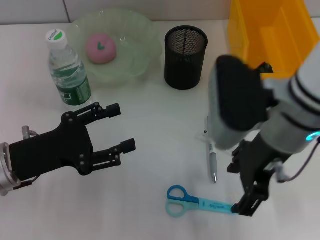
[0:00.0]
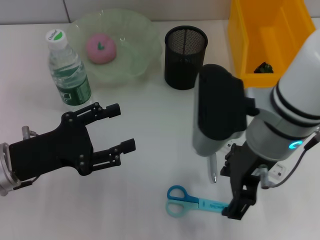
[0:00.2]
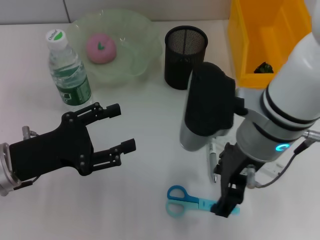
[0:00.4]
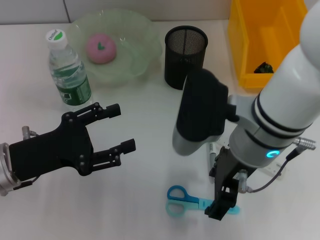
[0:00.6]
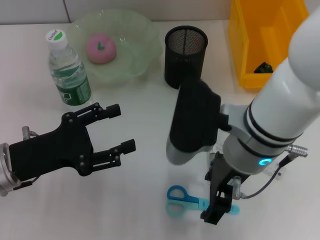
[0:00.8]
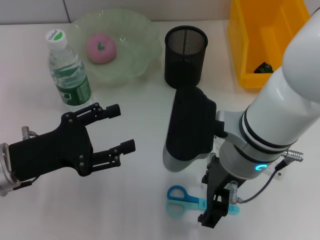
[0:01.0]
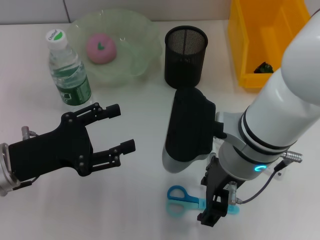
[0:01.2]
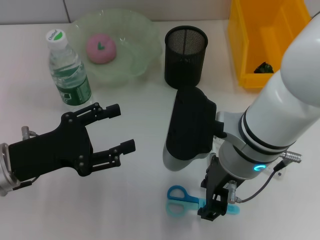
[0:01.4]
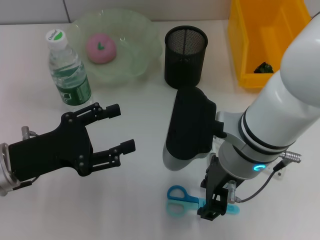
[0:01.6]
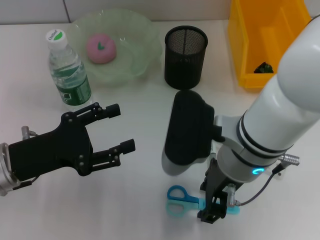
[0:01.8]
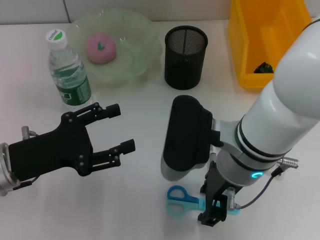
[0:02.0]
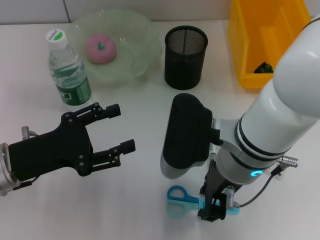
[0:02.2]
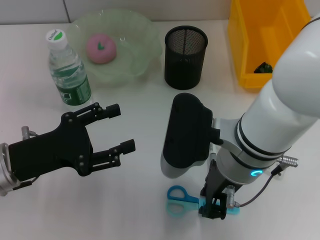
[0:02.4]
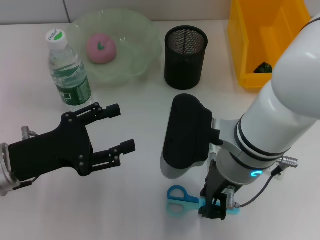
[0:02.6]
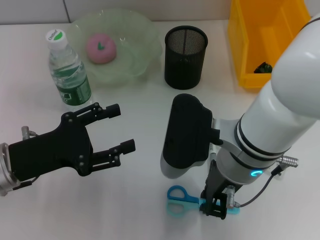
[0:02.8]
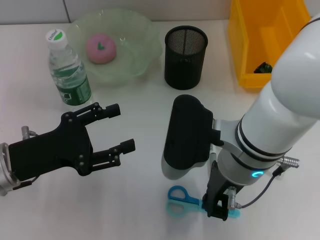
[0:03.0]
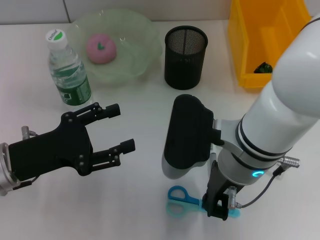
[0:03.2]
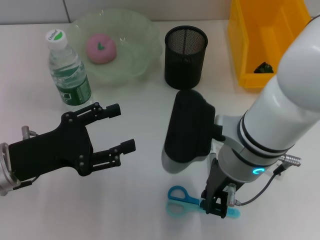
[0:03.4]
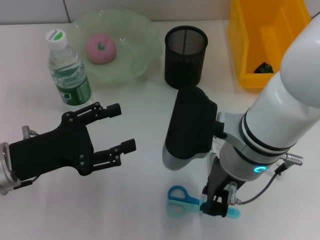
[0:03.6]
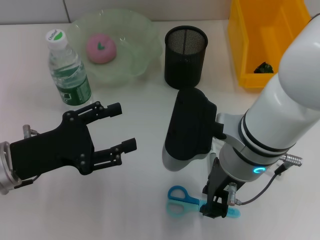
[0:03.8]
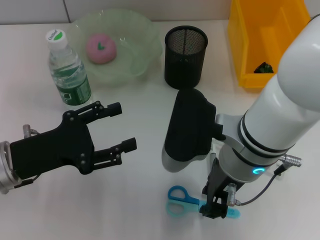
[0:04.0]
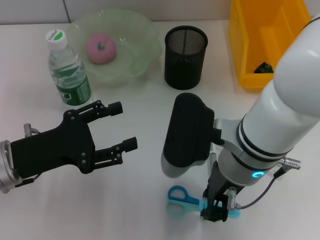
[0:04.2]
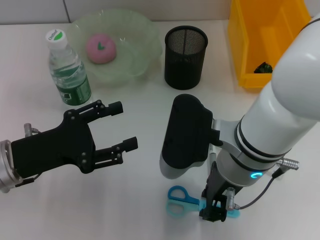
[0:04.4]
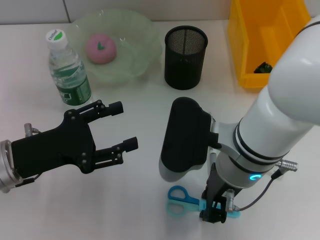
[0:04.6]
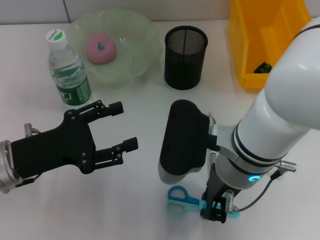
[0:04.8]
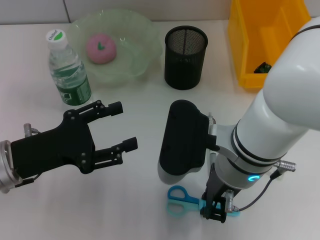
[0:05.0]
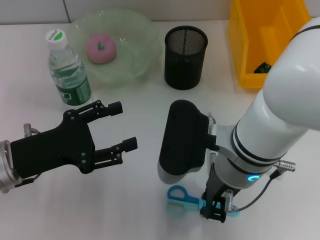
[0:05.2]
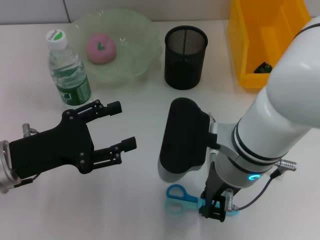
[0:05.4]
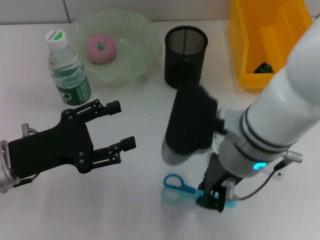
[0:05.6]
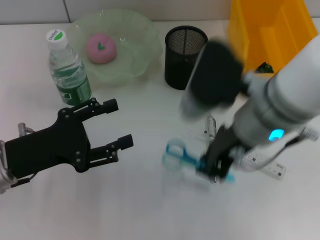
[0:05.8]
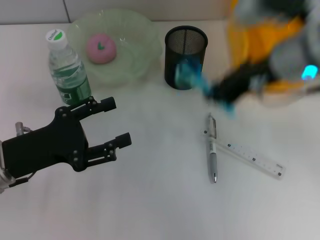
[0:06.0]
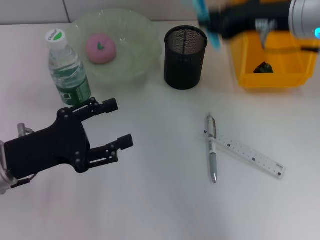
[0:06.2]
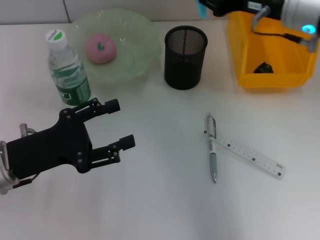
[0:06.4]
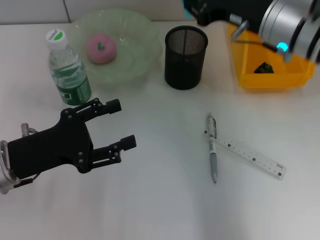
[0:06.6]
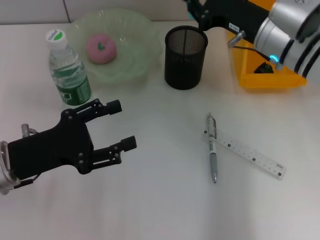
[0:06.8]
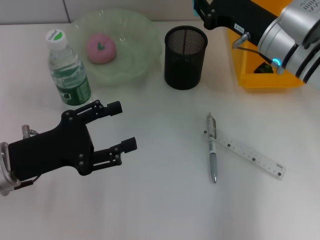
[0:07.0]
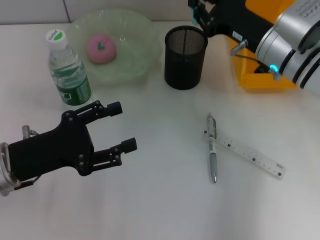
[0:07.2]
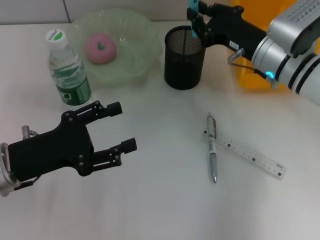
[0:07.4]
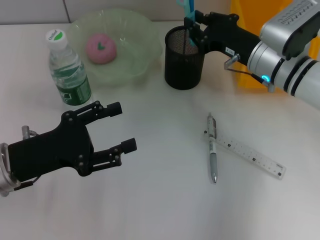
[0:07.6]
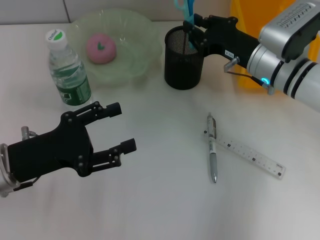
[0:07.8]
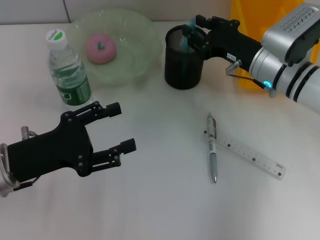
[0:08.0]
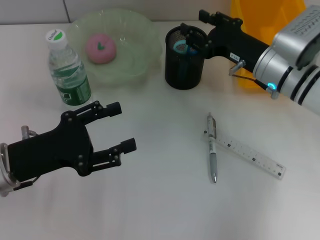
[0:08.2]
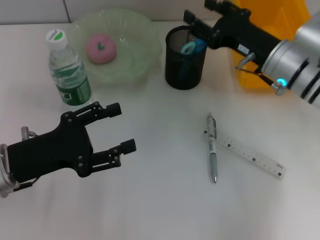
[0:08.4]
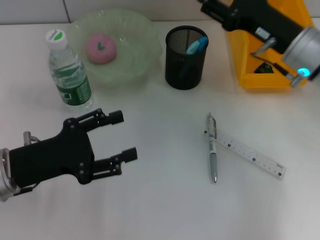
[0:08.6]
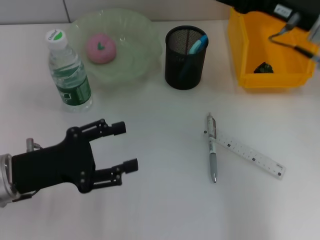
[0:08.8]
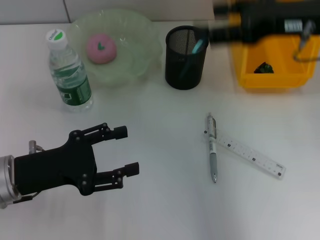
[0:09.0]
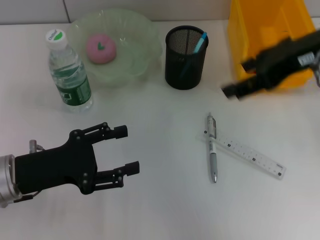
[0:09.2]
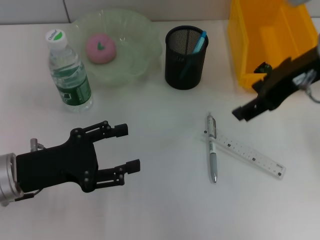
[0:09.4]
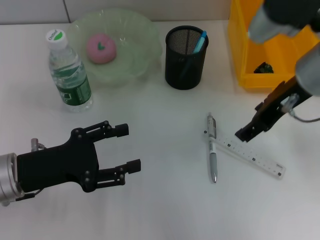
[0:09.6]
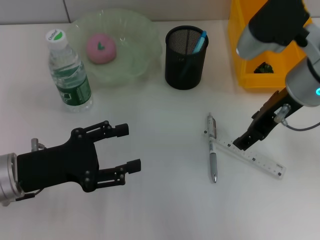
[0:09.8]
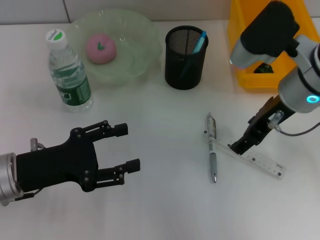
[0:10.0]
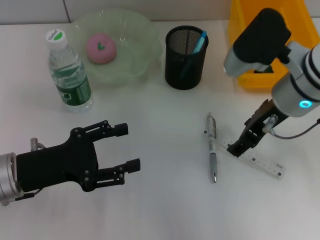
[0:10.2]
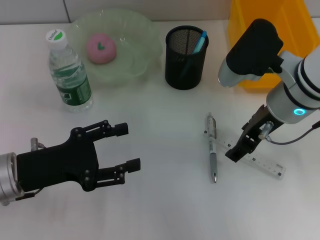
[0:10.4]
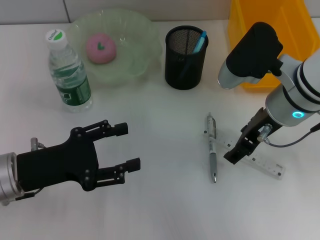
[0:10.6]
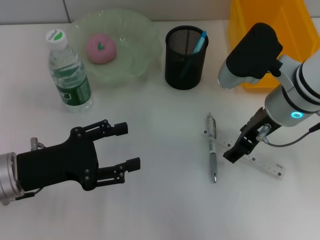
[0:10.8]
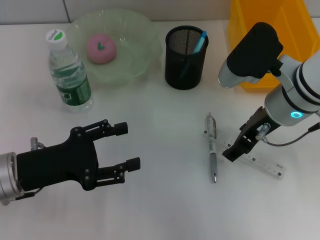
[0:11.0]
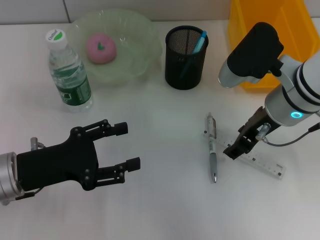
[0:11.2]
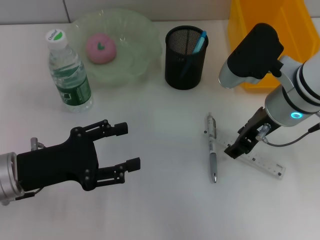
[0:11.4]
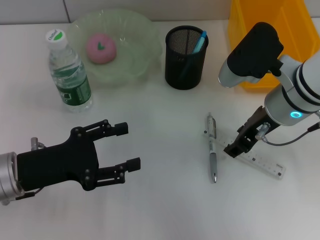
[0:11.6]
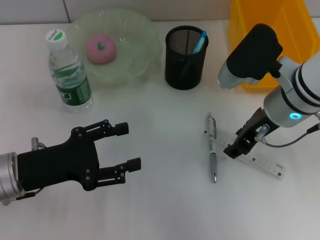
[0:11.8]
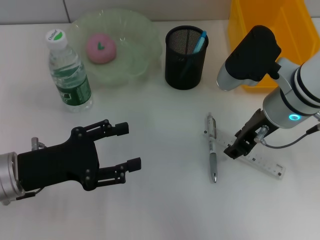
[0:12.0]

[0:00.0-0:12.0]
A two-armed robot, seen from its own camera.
Step, 0:00.0 to 0:05.0: Grab the blue scissors with the right hand.
Step, 0:05.2 to 0:08.2: Place the blue scissors into the pen holder with the right hand.
0:00.0 to 0:01.6: The right gripper shifts by roughly 5 cm.
0:01.6 to 0:03.0: The right gripper closes its fingers.
0:03.0 to 0:04.4: The two grippers keep their place.
0:04.4 to 0:06.0: The right gripper is displaced upward, to the right and forward by some 15 cm.
0:06.0 to 0:07.6: The right gripper goes roughly 15 cm downward and forward.
0:07.6 to 0:09.0: The right gripper is displaced upward by about 15 cm, and opens its fingers.
0:09.0 to 0:10.4: The right gripper travels downward and to the left by about 10 cm.
0:10.4 to 0:12.0: The right gripper closes.

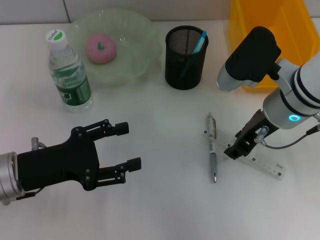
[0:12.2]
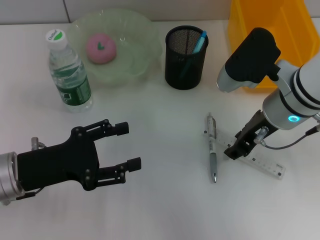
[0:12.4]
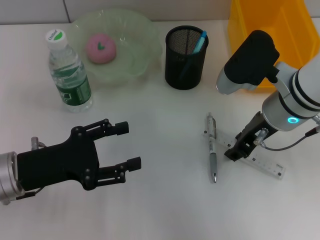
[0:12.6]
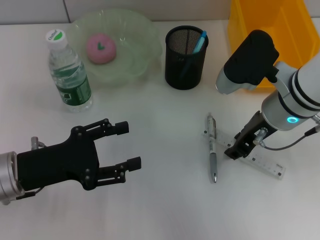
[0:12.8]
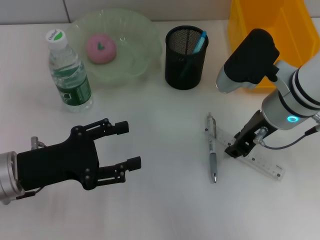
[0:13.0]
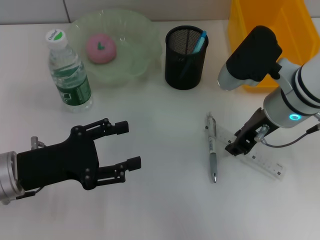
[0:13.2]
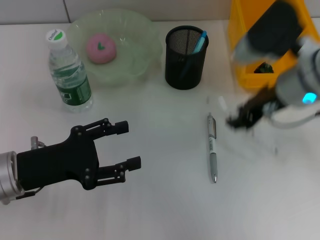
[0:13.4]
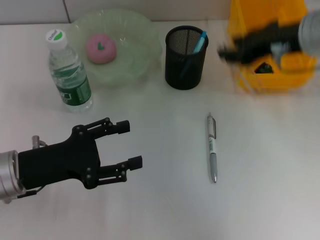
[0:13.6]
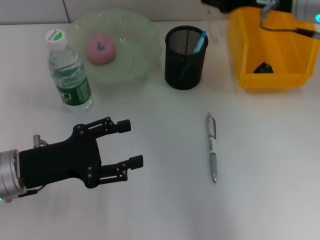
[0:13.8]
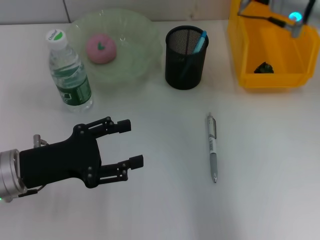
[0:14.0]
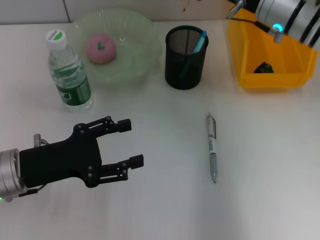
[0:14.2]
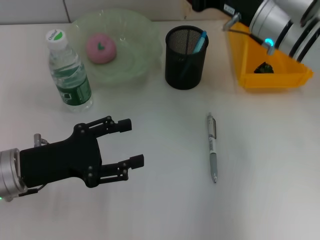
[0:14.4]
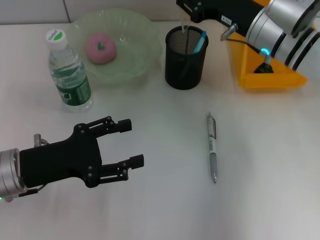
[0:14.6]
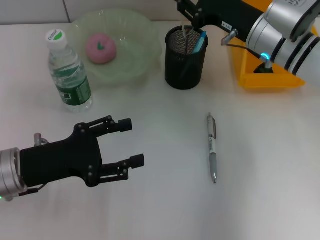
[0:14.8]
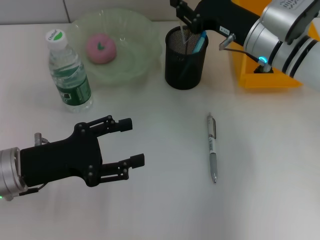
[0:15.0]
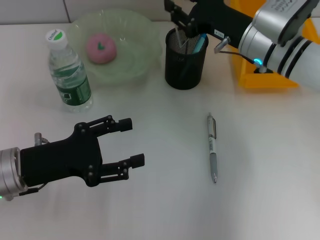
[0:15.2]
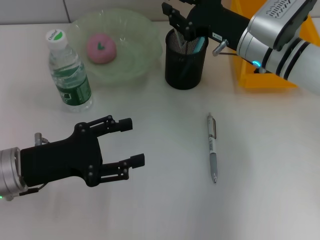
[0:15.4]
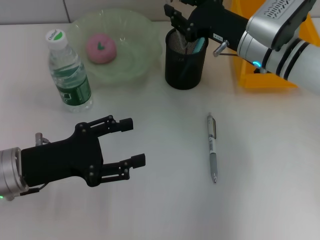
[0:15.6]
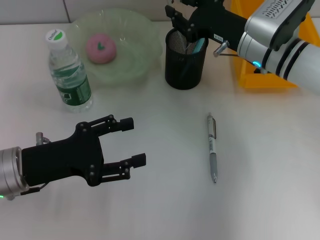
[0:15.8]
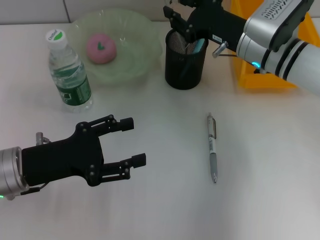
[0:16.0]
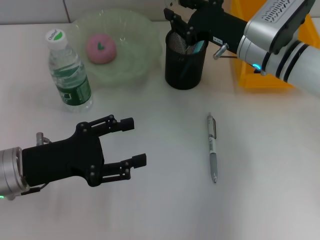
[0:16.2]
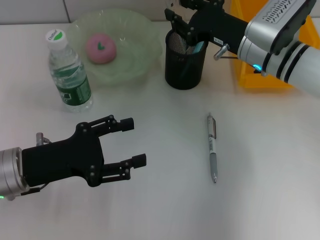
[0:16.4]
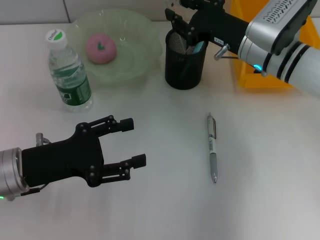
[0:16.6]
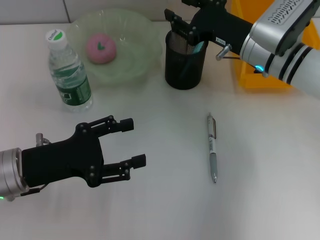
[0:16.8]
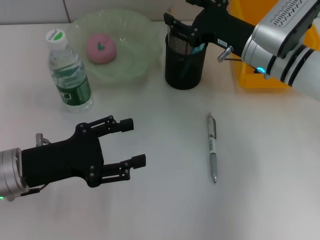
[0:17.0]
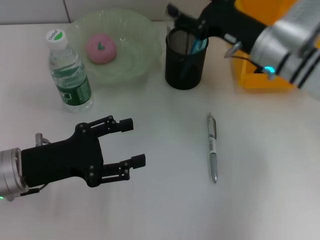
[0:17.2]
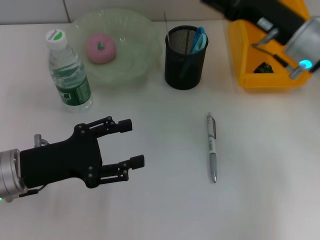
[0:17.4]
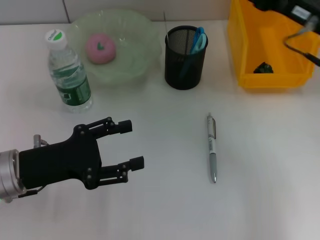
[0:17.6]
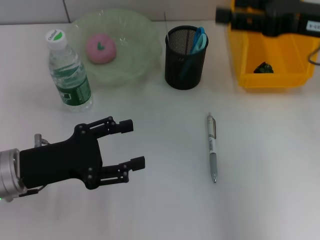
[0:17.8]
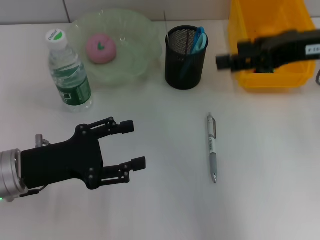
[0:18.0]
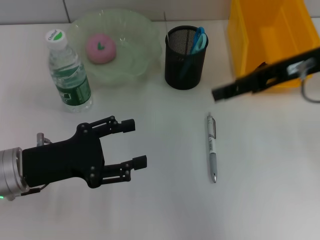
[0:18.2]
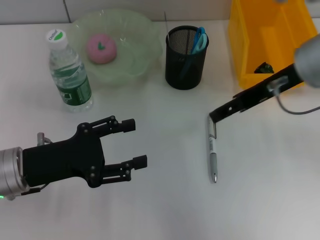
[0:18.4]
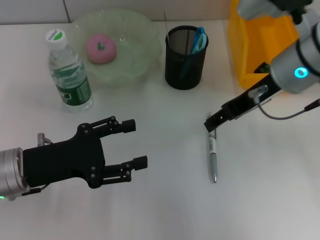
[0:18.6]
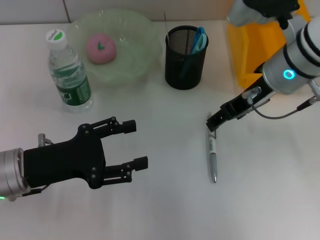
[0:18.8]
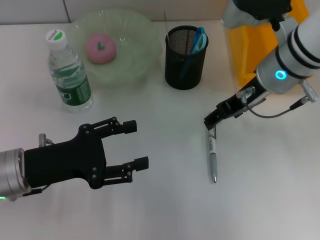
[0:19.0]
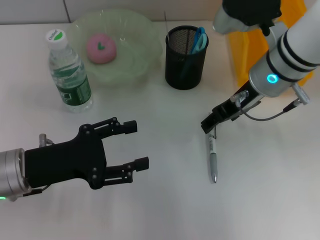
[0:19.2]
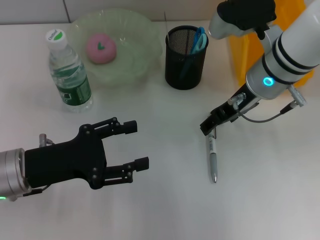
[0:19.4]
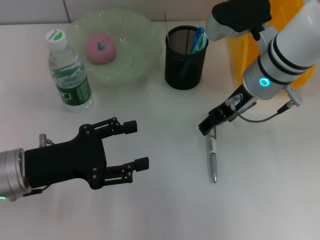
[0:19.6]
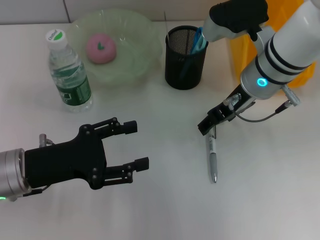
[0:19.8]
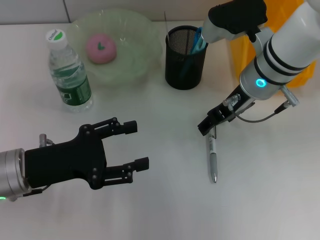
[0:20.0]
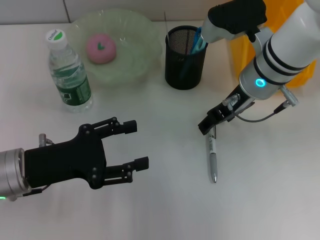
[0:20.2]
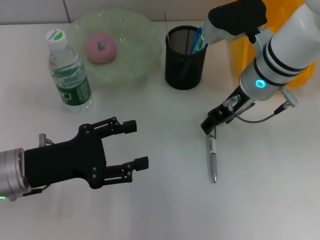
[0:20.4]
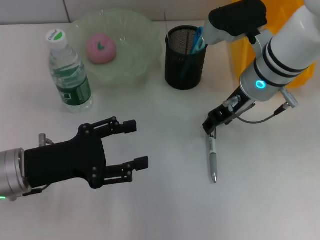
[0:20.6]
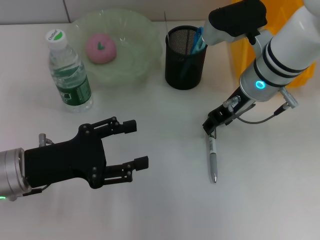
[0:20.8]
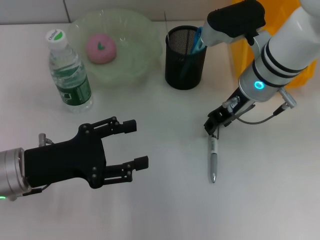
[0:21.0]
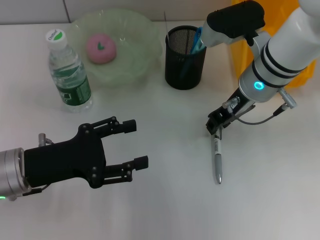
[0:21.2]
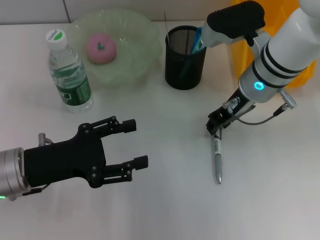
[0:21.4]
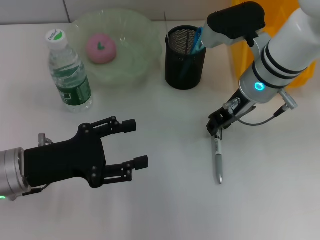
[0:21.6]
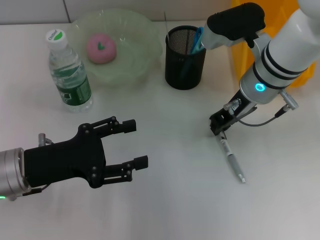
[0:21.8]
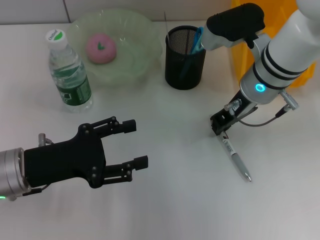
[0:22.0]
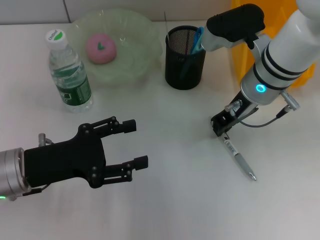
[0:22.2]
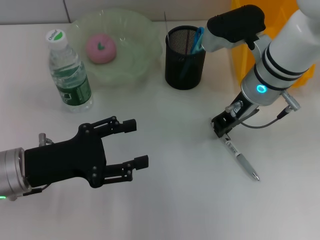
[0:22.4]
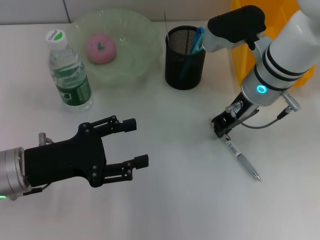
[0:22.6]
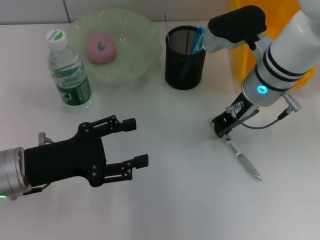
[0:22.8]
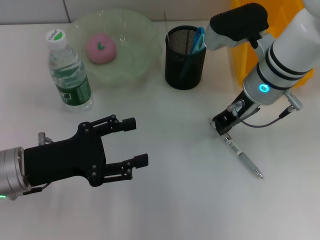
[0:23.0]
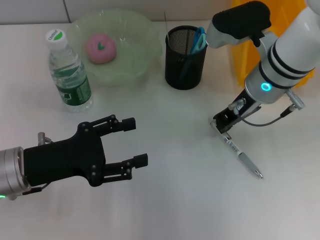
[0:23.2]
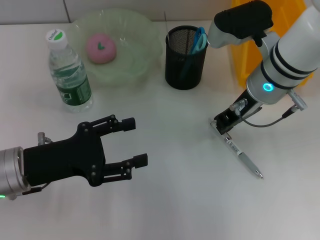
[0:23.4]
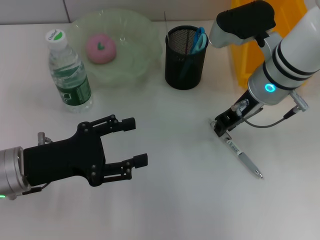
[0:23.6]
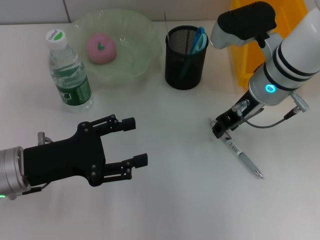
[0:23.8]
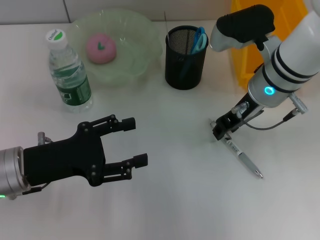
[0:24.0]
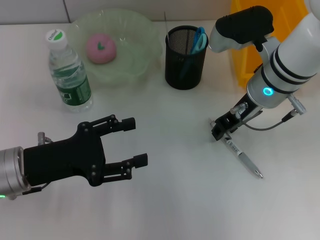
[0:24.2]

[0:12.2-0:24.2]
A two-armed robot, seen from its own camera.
Step, 0:13.0 to 0:17.0: Place the ruler into the pen holder with the right hand.
0:12.2 to 0:13.8: The right gripper travels upward by about 10 cm.
0:13.8 to 0:15.2: The right gripper moves downward, approximately 10 cm.
0:15.2 to 0:16.6: Neither gripper changes place.
0:16.6 to 0:18.2: The right gripper is displaced upward and backward by some 15 cm, and opens its fingers.
0:18.2 to 0:19.8: The right gripper goes about 15 cm downward, to the left and forward.
0:19.8 to 0:21.2: The right gripper closes up.
0:21.2 to 0:22.6: The right gripper closes its fingers.
0:22.6 to 0:24.2: The right gripper opens up.
